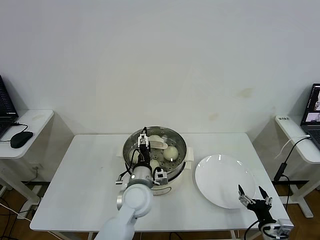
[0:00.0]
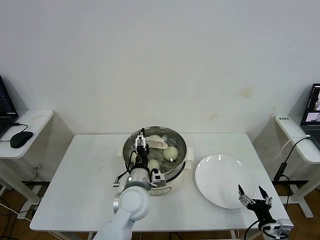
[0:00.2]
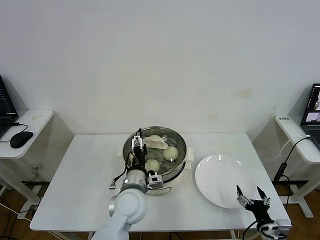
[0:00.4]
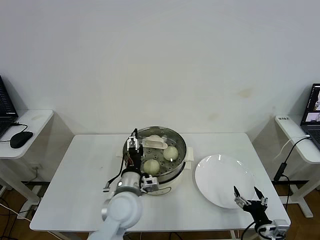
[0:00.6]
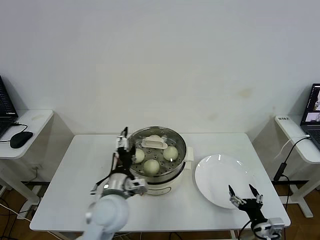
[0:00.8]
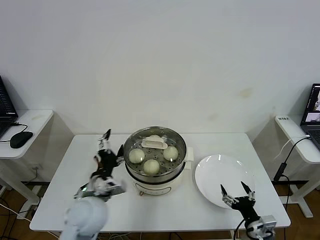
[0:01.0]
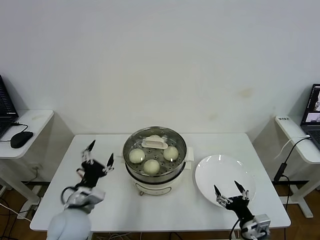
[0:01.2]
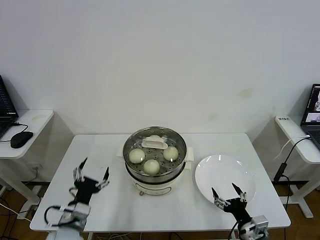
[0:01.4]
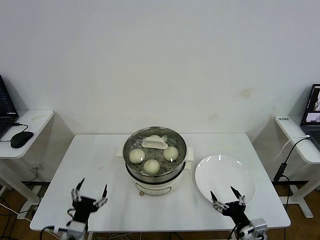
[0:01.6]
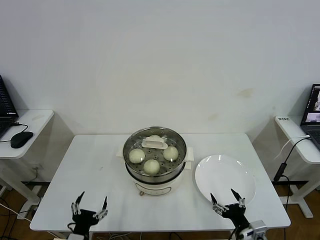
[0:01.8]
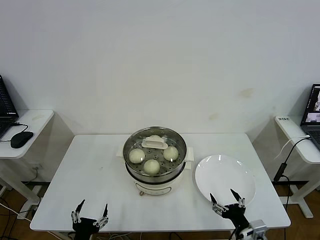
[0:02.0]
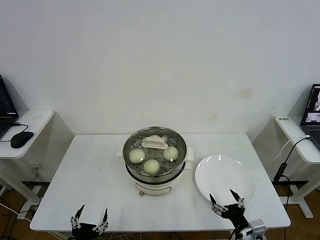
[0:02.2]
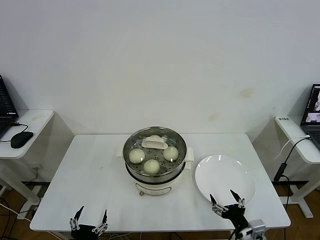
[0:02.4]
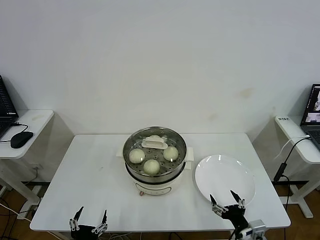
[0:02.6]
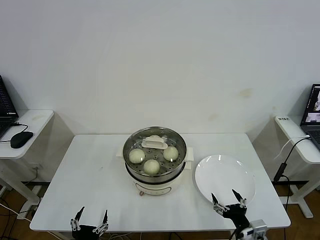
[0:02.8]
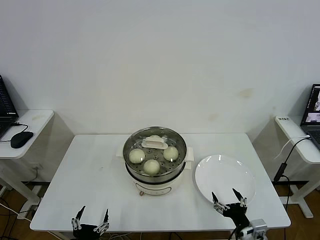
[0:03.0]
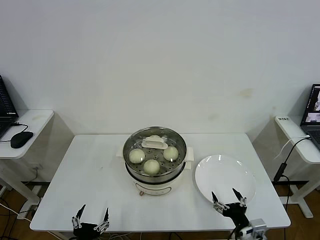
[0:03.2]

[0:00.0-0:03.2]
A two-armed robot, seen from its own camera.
0:00.0 to 0:01.6: The right gripper shifts about 5 cm to the left; the left gripper is displaced to the left and backward by approximately 25 cm.
0:01.6 to 0:03.2: The left gripper shifts approximately 10 cm backward.

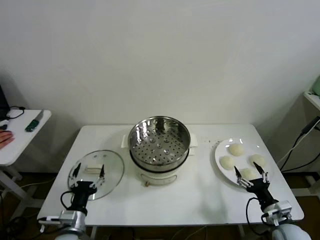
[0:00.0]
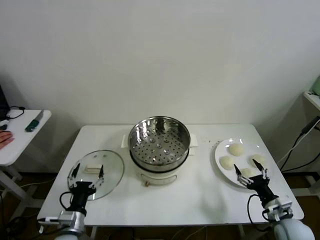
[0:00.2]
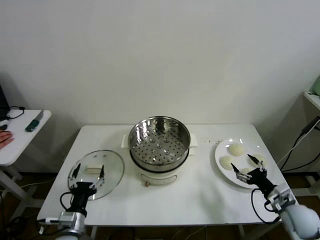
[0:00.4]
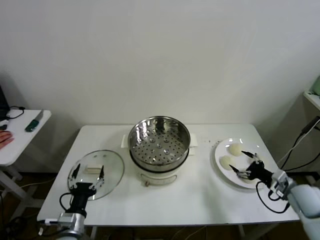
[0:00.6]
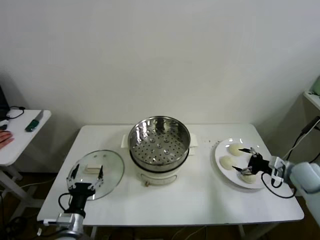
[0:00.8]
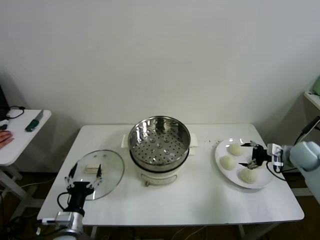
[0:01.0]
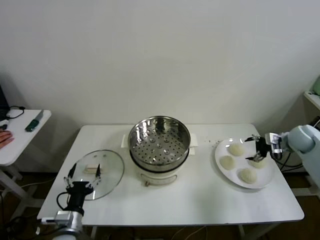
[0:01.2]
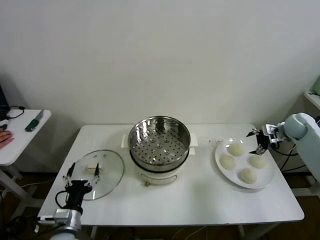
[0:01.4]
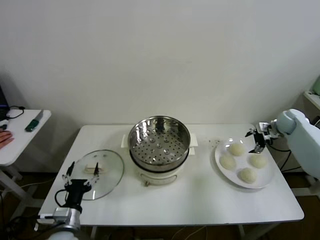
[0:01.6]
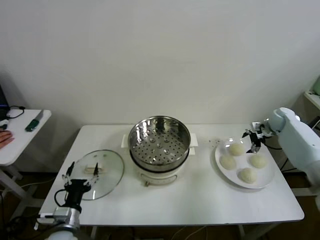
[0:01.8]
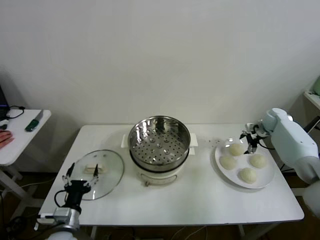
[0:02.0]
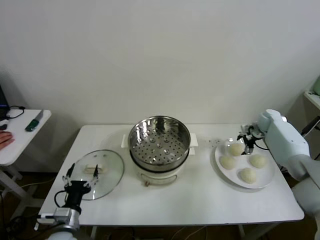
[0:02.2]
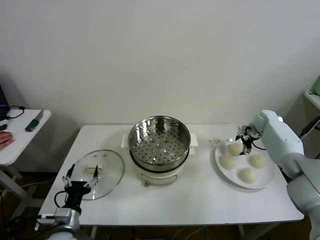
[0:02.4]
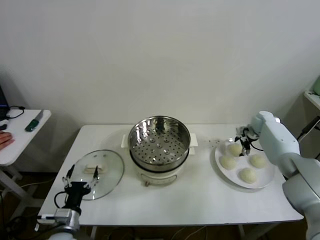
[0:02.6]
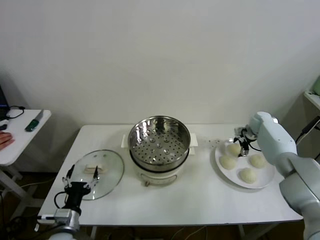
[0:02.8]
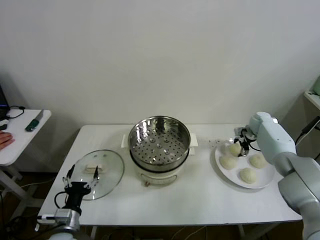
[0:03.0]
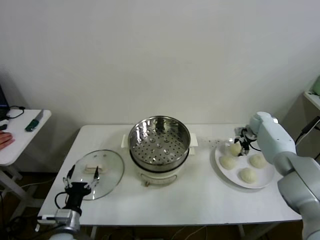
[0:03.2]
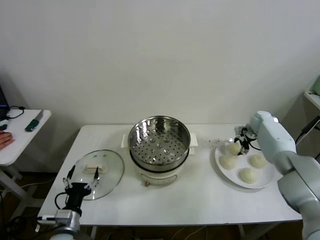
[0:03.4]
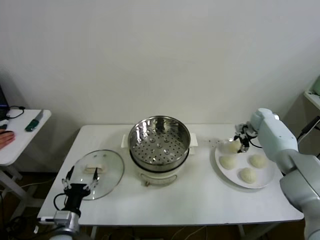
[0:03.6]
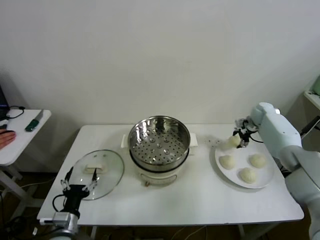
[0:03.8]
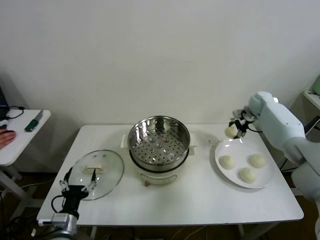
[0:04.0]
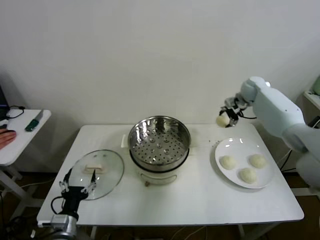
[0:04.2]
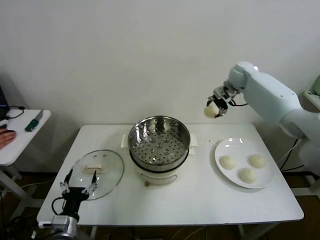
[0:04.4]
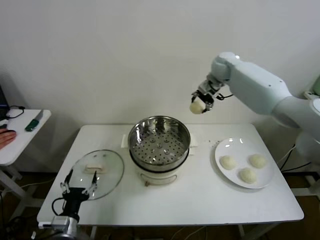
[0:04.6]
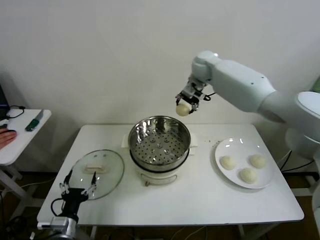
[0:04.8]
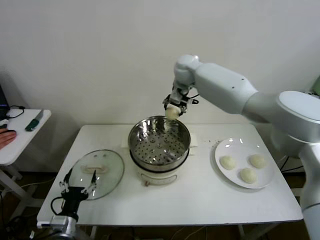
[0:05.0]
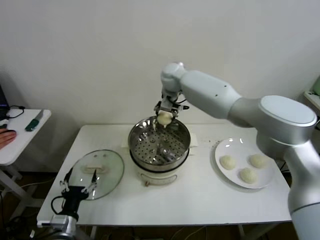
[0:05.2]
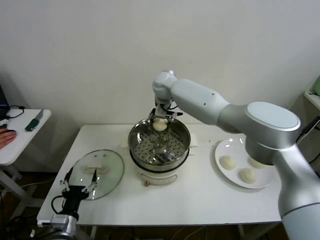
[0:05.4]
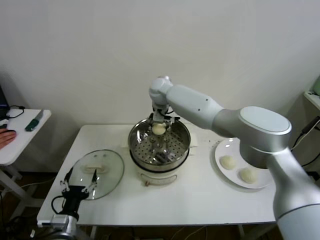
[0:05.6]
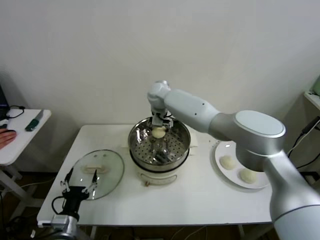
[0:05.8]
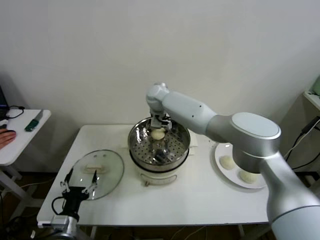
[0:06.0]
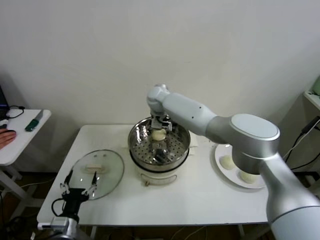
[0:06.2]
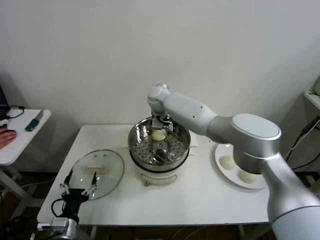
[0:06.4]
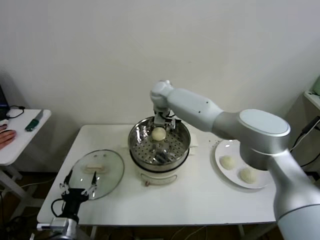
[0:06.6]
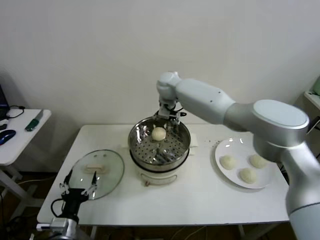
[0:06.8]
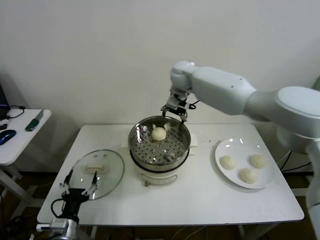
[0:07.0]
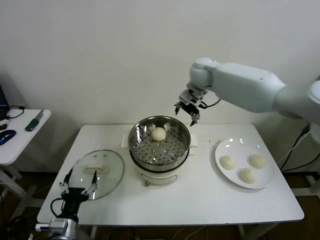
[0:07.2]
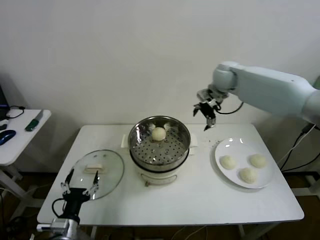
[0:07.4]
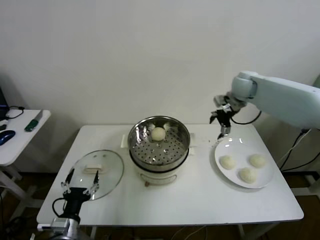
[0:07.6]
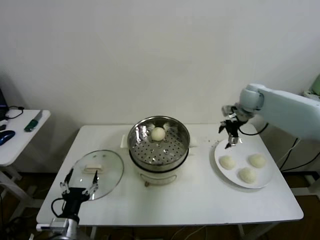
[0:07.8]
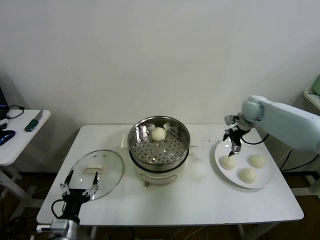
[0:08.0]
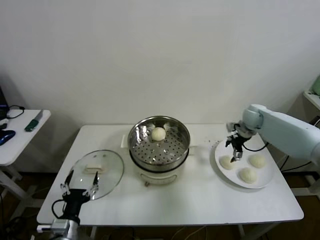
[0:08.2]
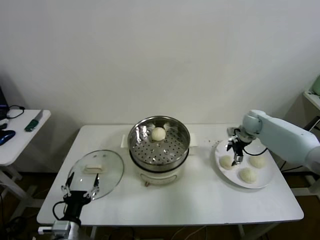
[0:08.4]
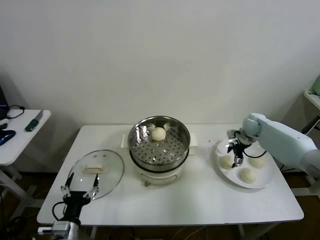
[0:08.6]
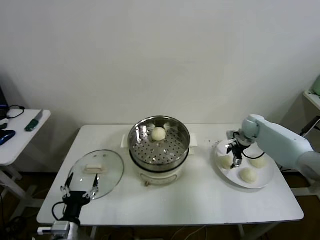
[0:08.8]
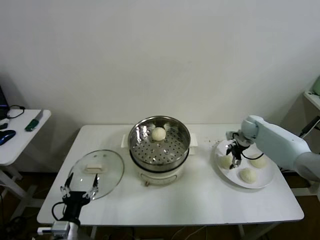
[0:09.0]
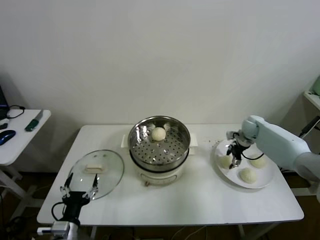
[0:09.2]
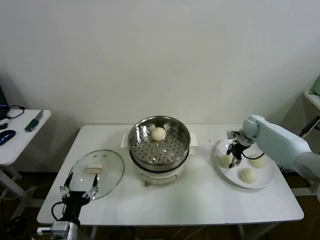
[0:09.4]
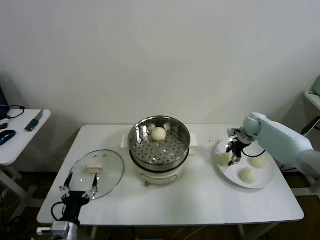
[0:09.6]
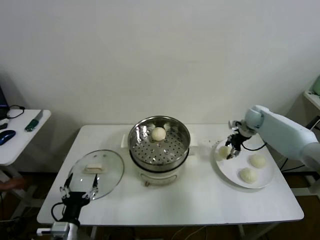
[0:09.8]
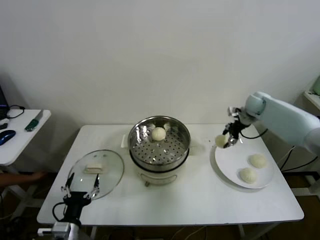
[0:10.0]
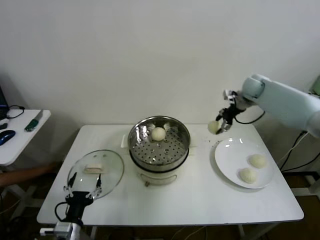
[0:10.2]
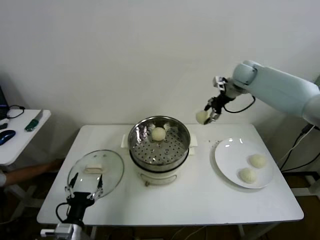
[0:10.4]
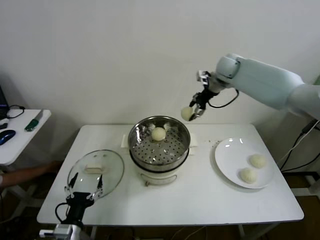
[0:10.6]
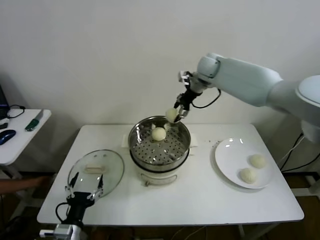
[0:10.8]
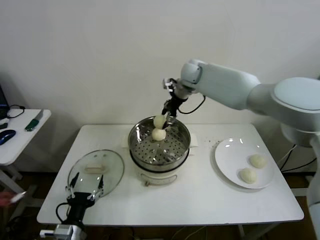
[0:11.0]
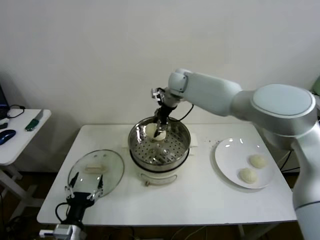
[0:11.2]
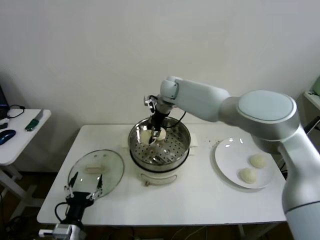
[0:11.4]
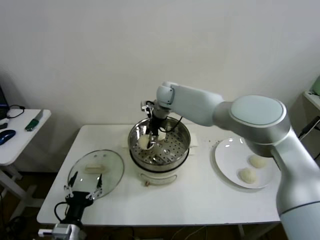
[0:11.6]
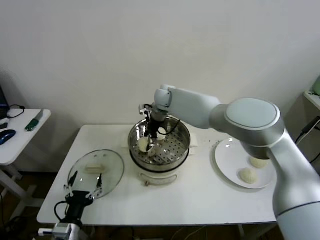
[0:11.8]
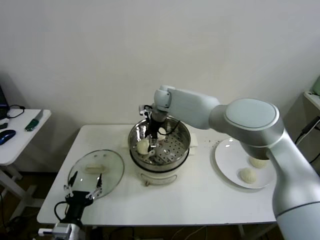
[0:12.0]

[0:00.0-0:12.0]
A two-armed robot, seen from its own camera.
Step, 0:00.0 to 0:03.0: Grasp the baozi in the plate with right gripper.
Step, 0:03.2 to 0:06.4: Place the baozi on the steamer with right gripper.
Step, 0:06.6 to 0:09.2: Grasp the baozi in the plate with right gripper.
Step, 0:09.4 to 0:11.8: Place the baozi on the steamer with right gripper.
0:01.6 to 0:03.0: The right gripper shifts approximately 10 cm to the left, downward and forward.
0:03.0 to 0:04.4: The right gripper shifts some 25 cm upward and to the left, and closes.
0:04.4 to 0:06.0: The right gripper moves to the left, approximately 30 cm.
0:06.0 to 0:07.6: The right gripper shifts roughly 30 cm to the right, and opens its fingers.
0:07.6 to 0:09.0: The right gripper is displaced downward and to the right by roughly 20 cm, and closes.
0:09.0 to 0:10.4: The right gripper moves upward, about 25 cm, and closes.
0:10.4 to 0:12.0: The right gripper goes about 30 cm to the left, and opens up.

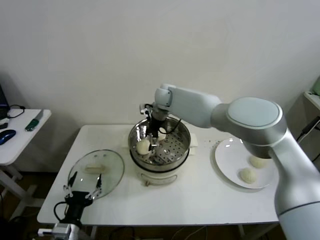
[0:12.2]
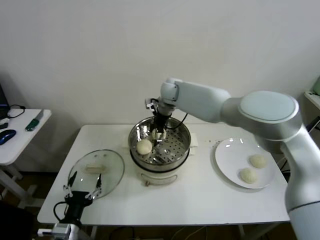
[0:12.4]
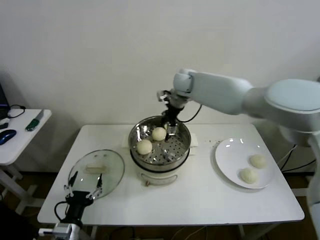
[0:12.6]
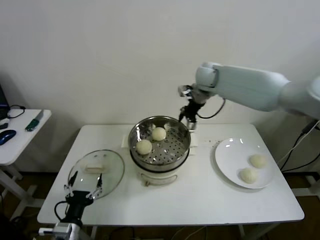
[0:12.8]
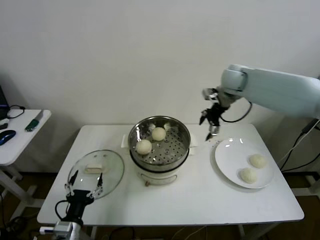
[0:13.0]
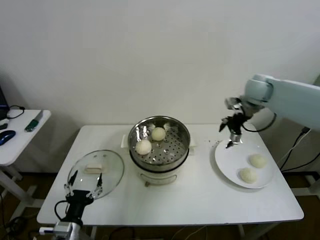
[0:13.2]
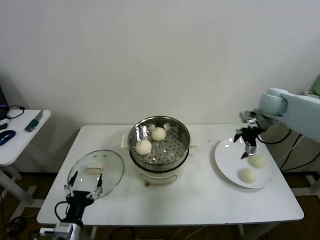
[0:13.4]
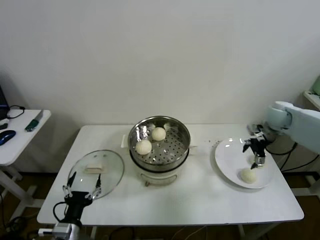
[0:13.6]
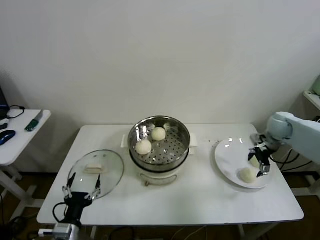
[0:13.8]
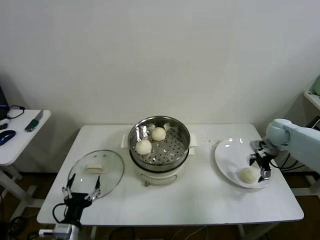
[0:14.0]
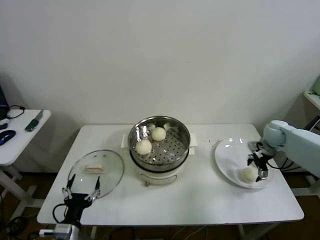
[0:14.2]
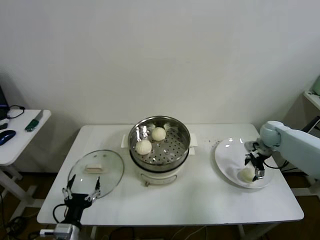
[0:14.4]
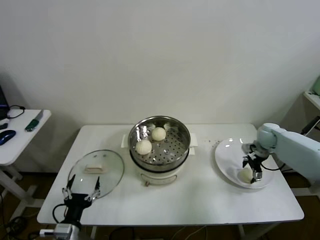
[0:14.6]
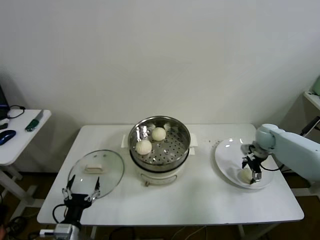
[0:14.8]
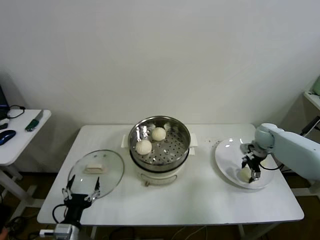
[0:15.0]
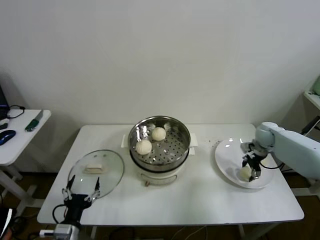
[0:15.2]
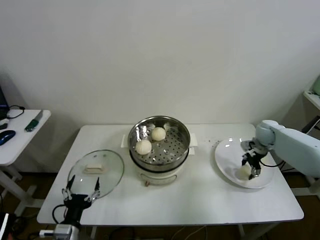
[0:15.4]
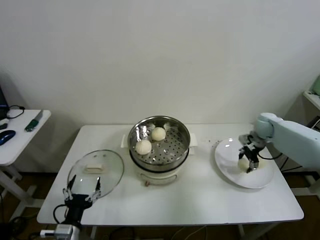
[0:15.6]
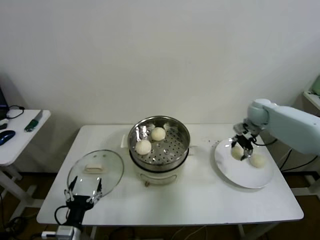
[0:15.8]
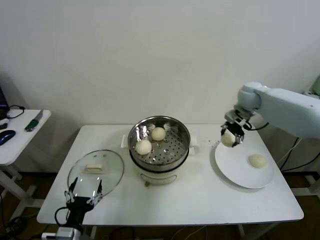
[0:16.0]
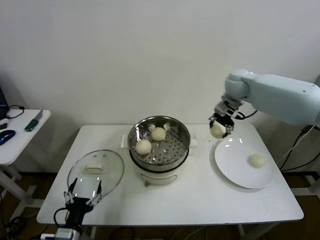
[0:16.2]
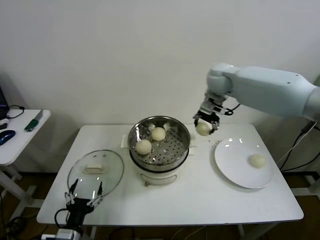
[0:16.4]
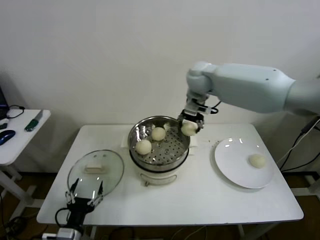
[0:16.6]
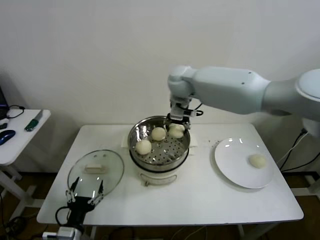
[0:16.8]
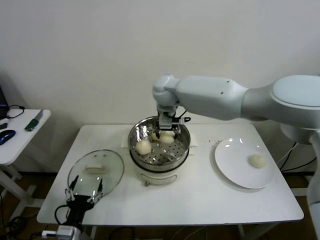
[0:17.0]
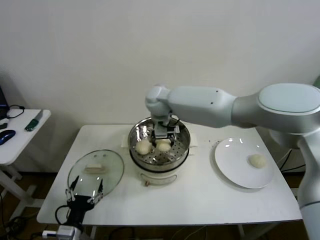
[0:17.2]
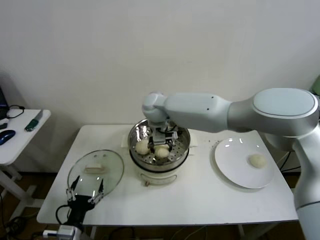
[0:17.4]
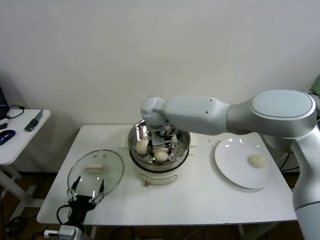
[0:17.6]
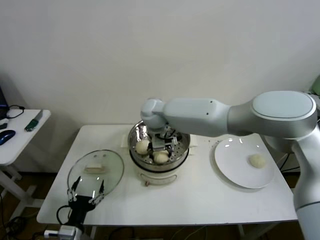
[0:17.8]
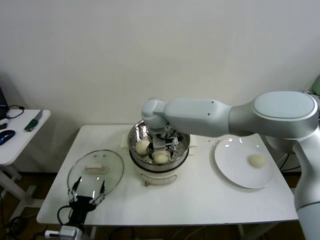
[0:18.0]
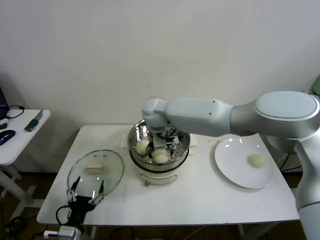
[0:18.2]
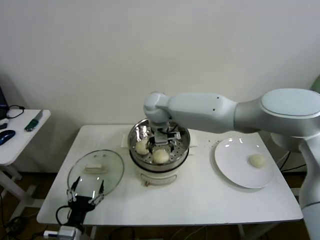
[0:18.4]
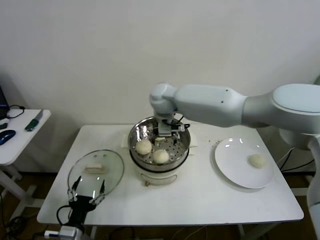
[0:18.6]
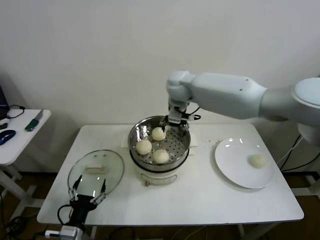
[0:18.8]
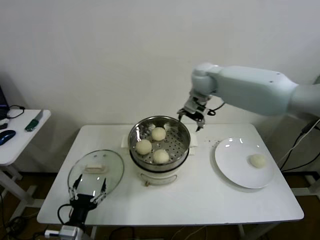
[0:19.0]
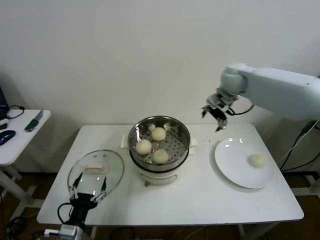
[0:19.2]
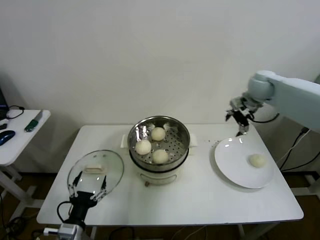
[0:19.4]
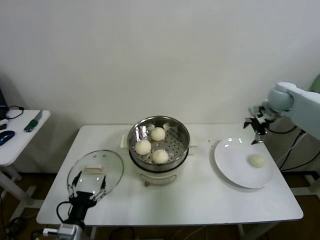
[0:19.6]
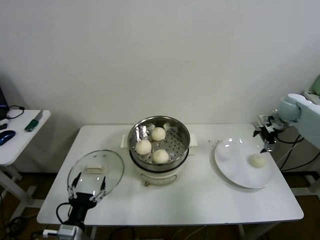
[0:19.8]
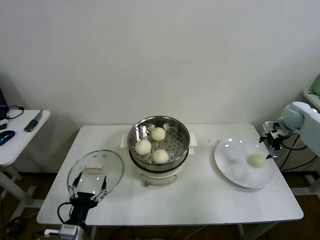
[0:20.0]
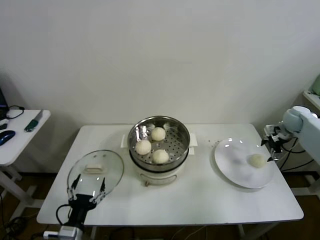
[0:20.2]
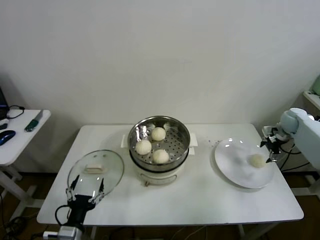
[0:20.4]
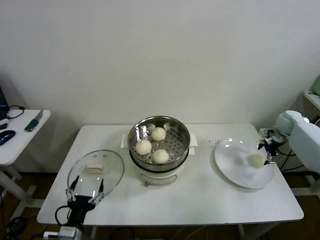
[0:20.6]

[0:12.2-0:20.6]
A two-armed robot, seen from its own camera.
Step, 0:12.2 to 0:15.0: Grasp the baozi in the plate with right gripper.
Step, 0:15.2 to 0:18.2: Place the baozi on the steamer with right gripper.
0:12.2 to 0:13.6: The right gripper heads to the right, covering roughly 40 cm.
0:13.6 to 0:15.0: The right gripper goes about 10 cm downward, and closes its fingers.
0:15.0 to 0:16.4: The right gripper goes about 35 cm upward and to the left, and closes up.
0:16.4 to 0:17.8: The right gripper travels to the left and downward by roughly 25 cm.
0:17.8 to 0:19.2: The right gripper shifts roughly 25 cm to the right, and opens.
0:19.2 to 0:20.6: The right gripper is displaced to the right and downward by some 35 cm.
